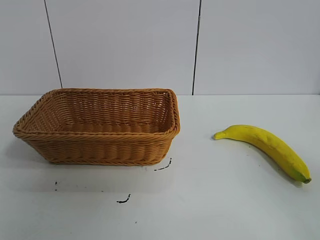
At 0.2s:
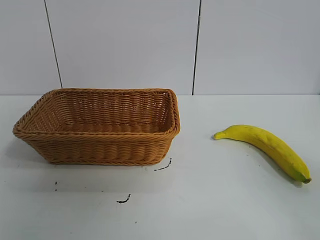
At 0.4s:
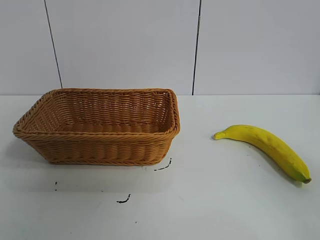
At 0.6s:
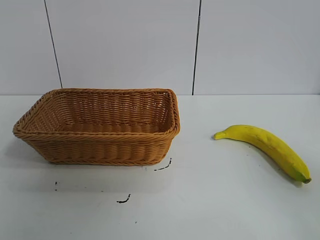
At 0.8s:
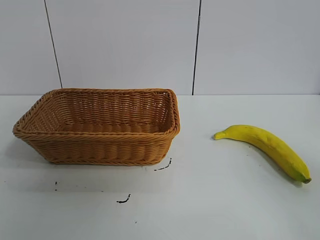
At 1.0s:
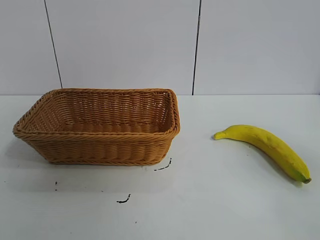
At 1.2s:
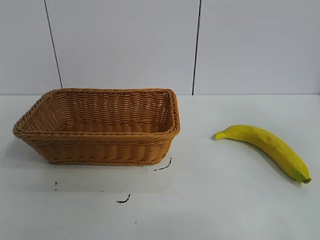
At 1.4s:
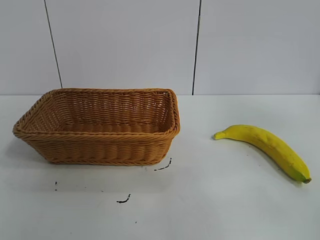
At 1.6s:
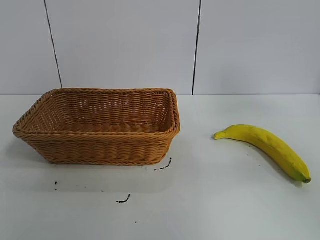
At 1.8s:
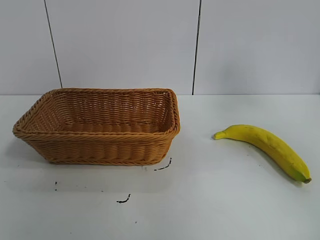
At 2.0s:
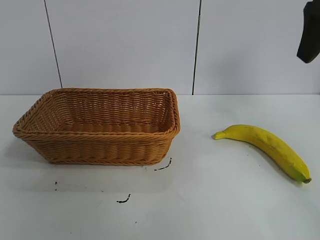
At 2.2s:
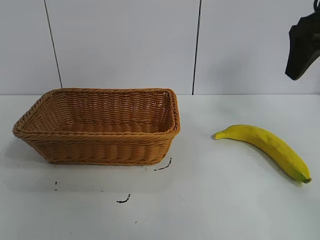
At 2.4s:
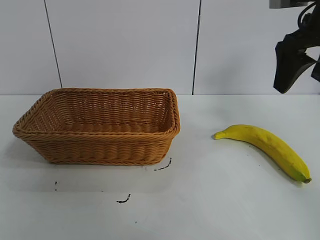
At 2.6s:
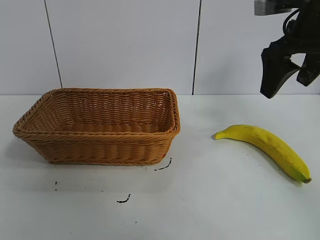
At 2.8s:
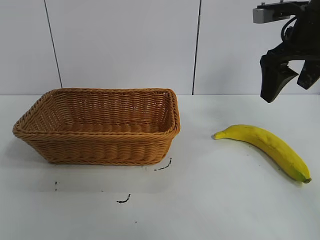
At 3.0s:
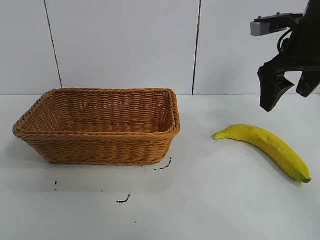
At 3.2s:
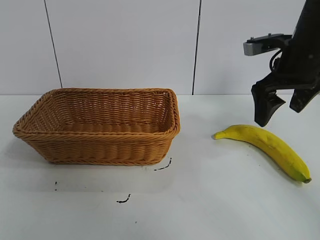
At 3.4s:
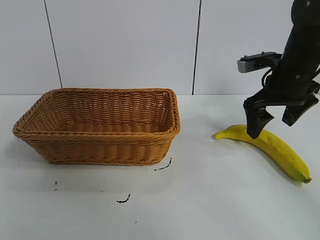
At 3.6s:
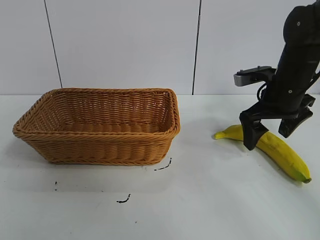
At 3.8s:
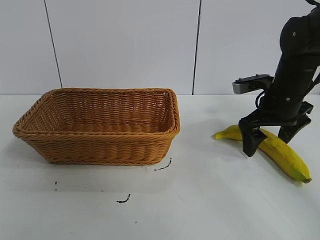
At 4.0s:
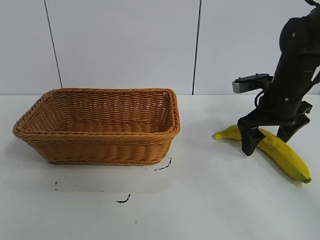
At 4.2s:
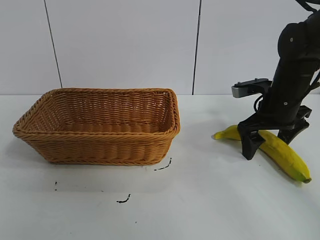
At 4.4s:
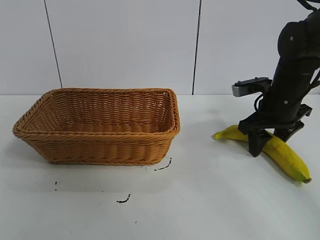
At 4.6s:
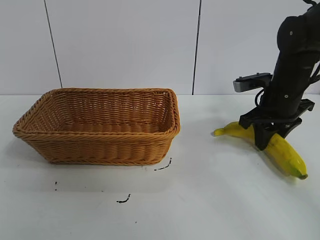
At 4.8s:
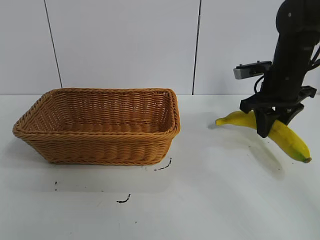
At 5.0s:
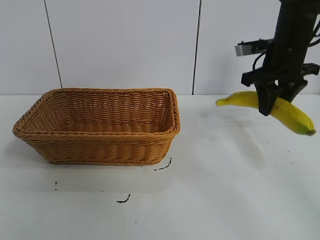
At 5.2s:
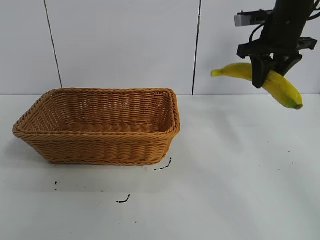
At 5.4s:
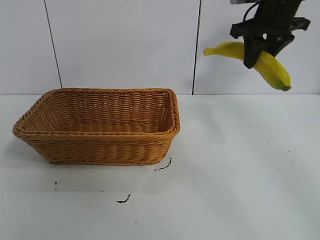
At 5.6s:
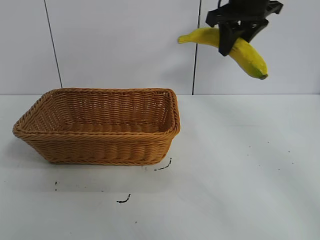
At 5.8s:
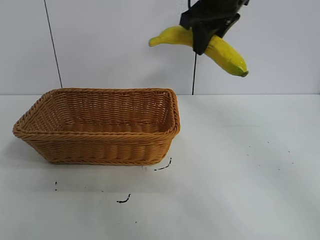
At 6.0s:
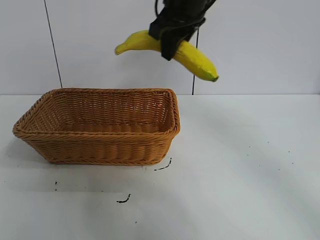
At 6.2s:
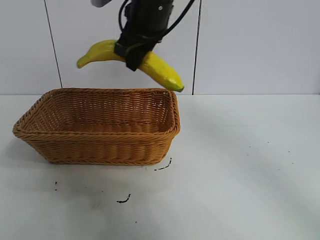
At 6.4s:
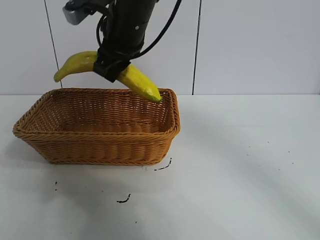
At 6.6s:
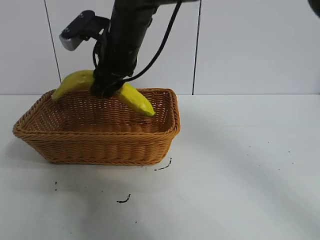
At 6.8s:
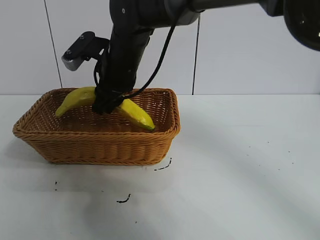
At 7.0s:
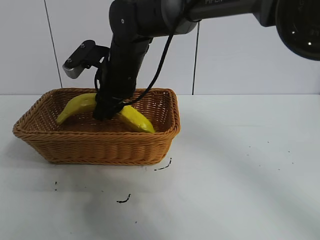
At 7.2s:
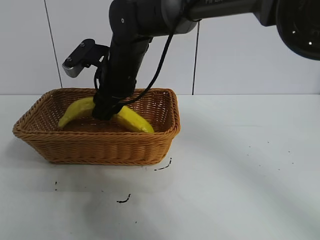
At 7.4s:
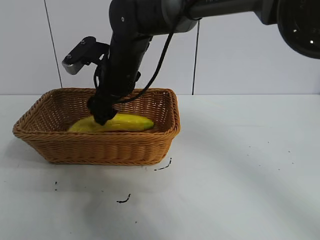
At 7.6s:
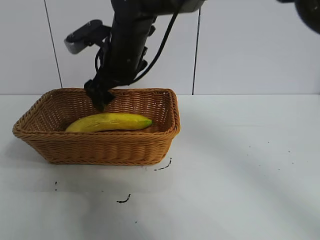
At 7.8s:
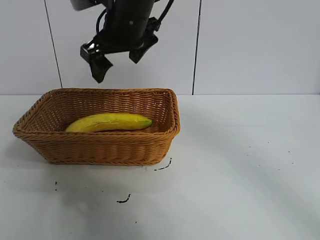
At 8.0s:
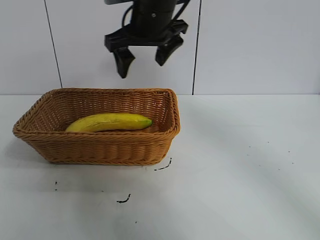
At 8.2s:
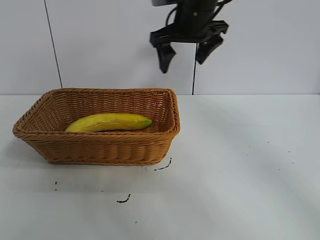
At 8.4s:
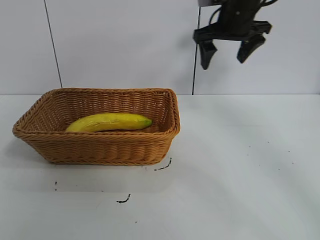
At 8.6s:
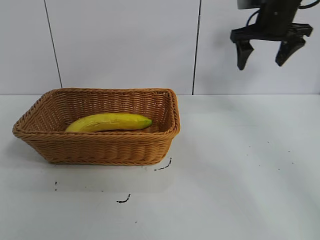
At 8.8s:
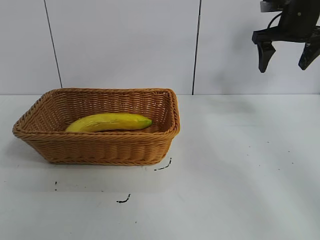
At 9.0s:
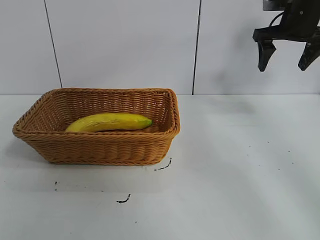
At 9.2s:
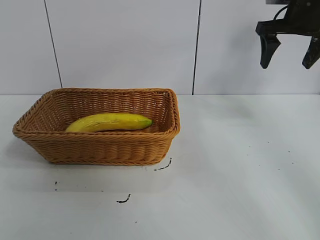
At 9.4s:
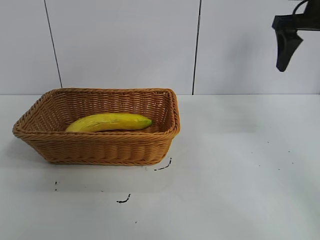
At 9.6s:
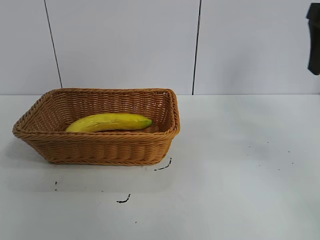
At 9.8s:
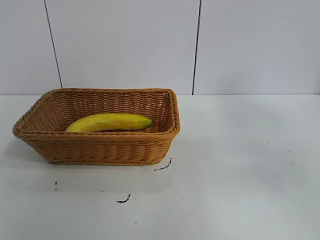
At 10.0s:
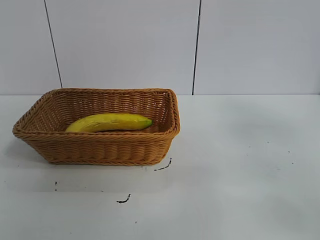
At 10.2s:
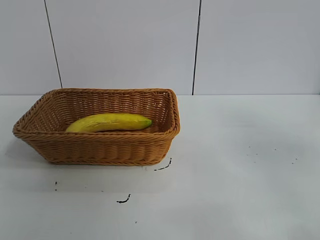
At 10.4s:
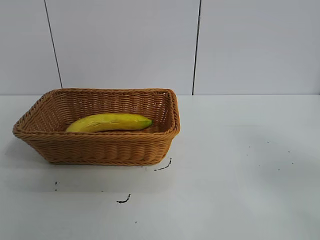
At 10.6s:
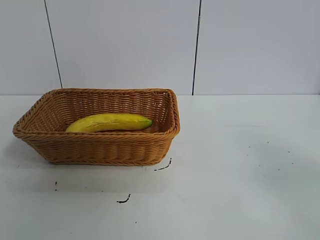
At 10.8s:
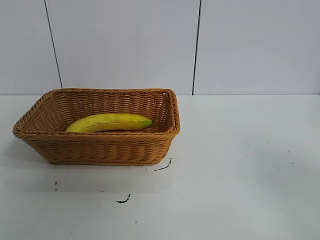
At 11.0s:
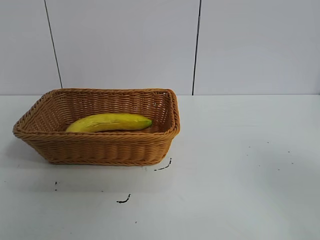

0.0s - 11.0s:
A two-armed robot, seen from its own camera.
Task of the whole recording: pick up the banana and put it into the basket.
Step, 0.8s - 4.4s: Grasp the banana with right gripper.
Step, 4.6s - 7.4s: Place the banana in the basket with right gripper.
